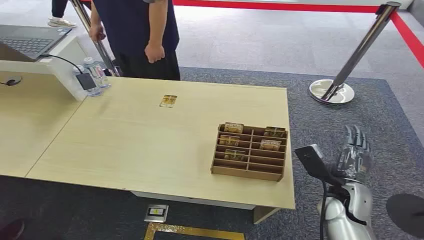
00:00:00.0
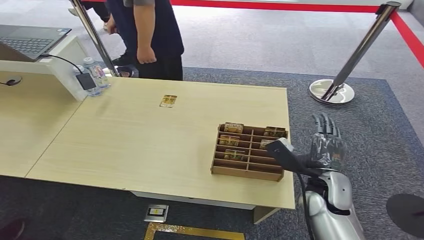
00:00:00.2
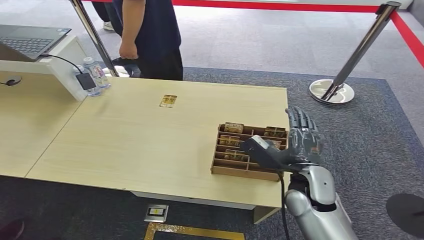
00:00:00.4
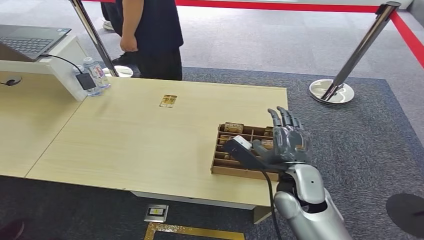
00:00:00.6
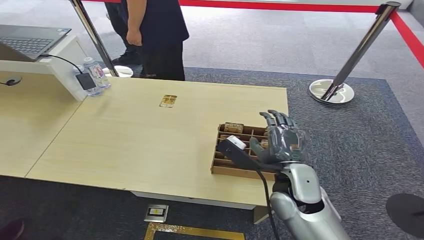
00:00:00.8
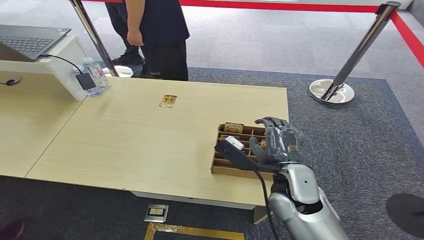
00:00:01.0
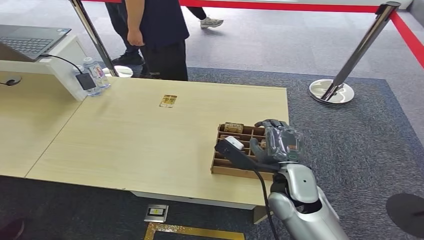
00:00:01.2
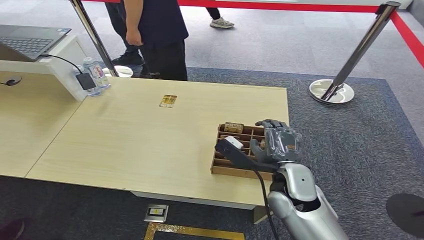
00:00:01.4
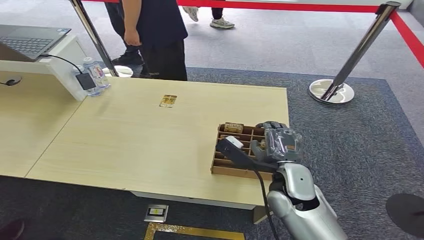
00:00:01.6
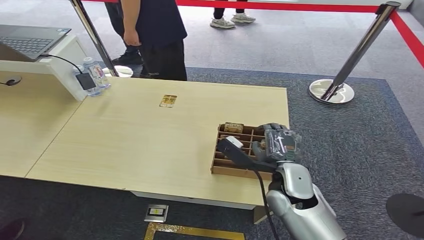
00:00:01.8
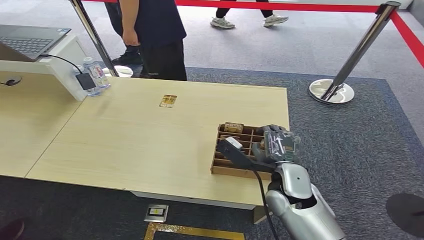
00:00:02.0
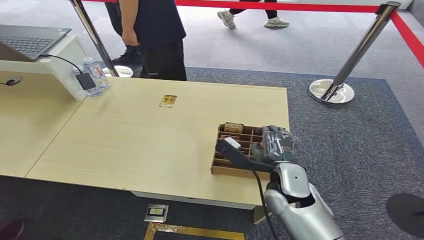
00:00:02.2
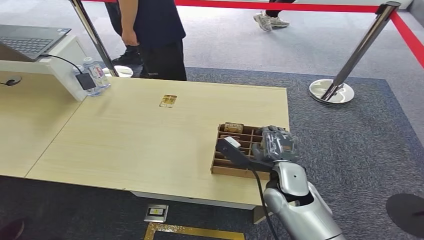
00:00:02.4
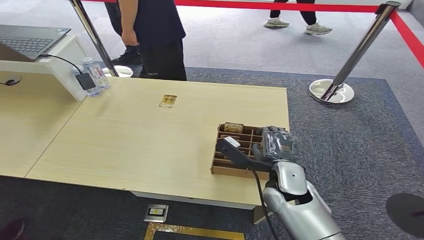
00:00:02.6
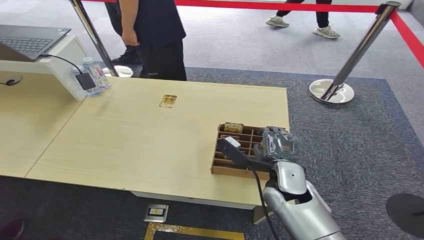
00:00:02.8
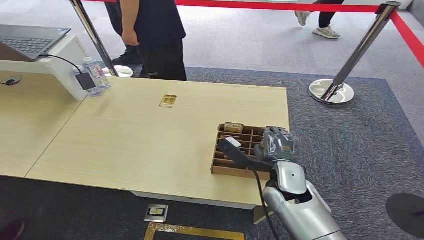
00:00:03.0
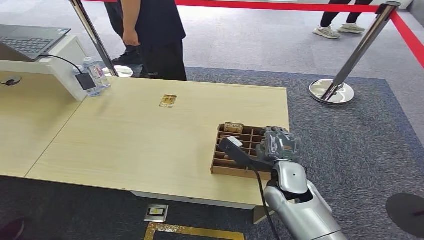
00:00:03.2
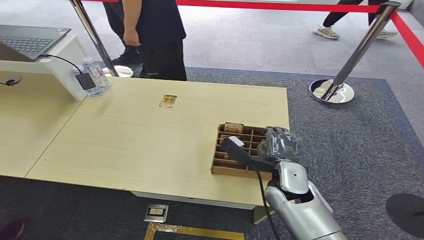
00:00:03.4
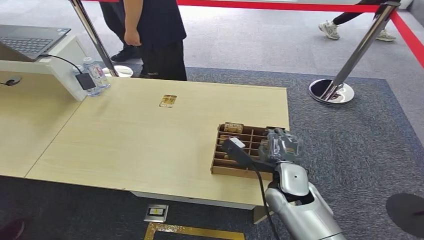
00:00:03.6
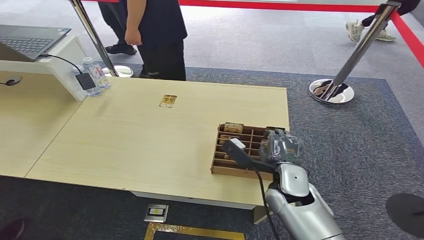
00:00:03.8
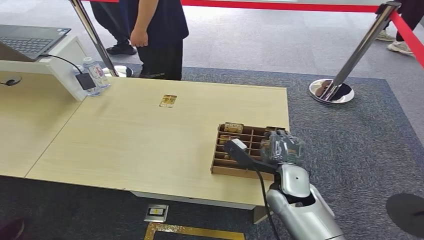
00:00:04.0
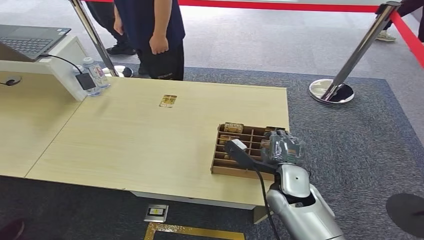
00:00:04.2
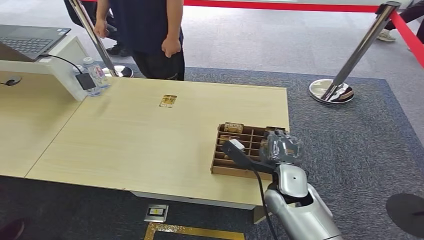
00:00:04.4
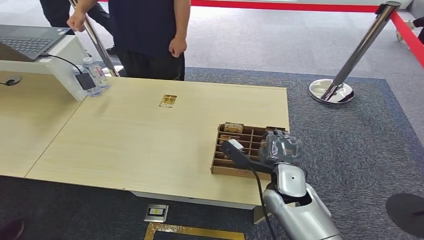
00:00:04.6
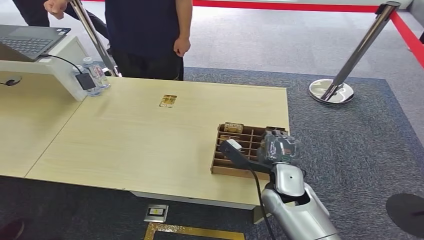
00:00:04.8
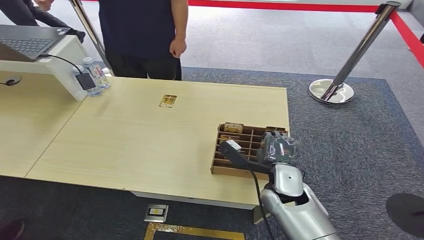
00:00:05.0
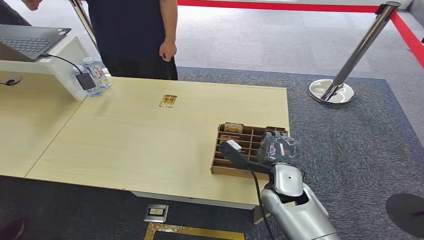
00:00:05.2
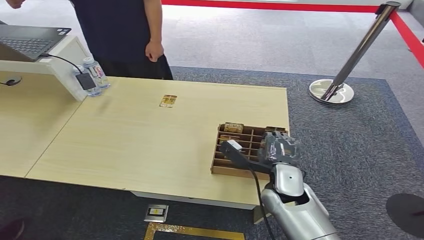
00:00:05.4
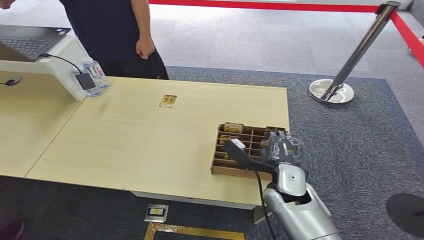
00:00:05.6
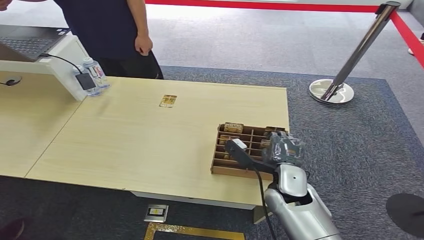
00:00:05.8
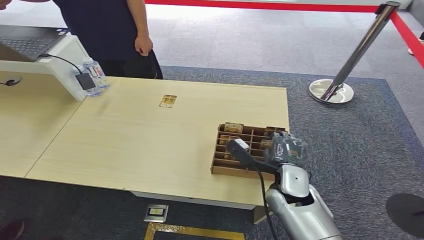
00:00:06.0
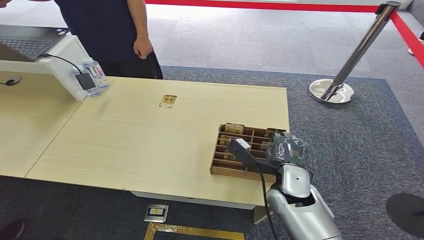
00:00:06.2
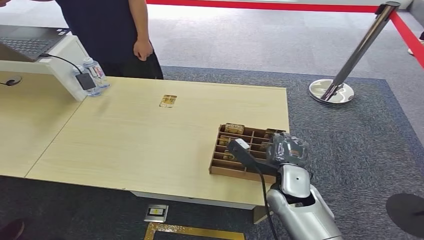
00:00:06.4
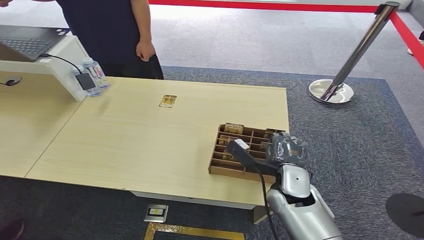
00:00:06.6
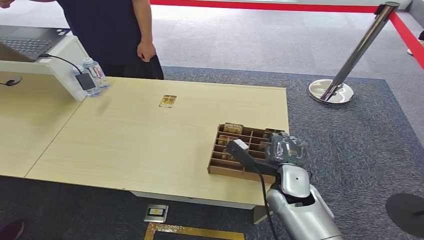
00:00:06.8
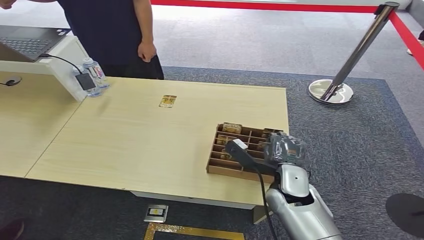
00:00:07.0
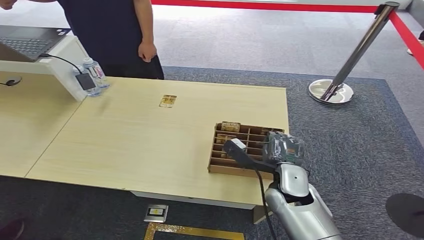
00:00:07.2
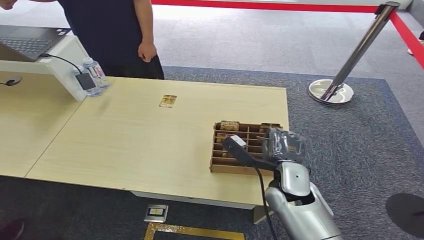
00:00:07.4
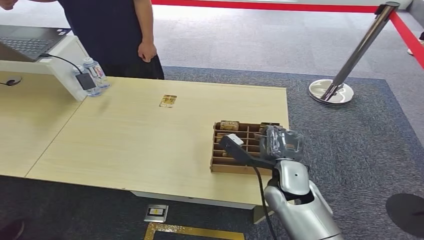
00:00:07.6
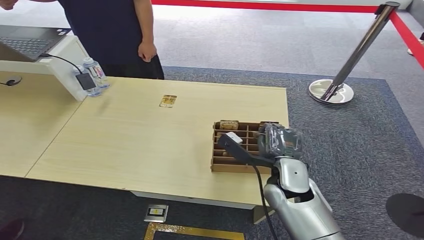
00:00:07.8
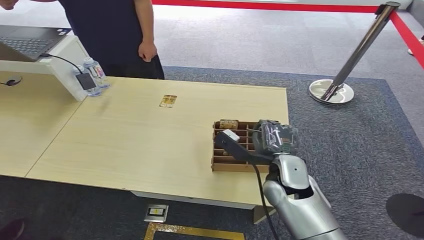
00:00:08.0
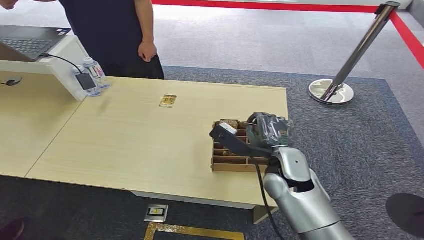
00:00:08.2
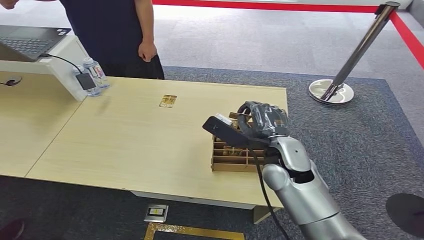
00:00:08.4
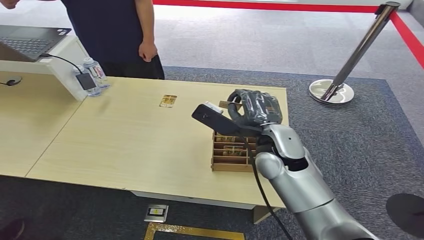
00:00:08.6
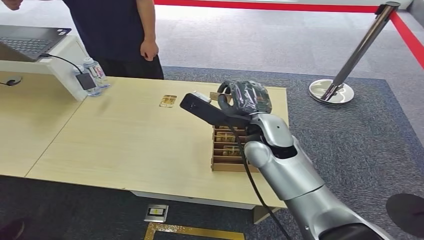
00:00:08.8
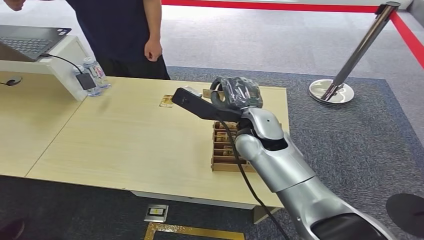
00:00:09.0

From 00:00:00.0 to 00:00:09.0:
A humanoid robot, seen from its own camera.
Task of the whole recording: Pick up the card and hand it over to the target person.
Step, from 00:00:00.0 to 00:00:08.0: Pick up the key card from the card box.
Step, from 00:00:08.2 to 00:00:09.0: Hand the key card to the target.
From 00:00:01.6 to 00:00:03.0: The hands make only small movements.
From 00:00:03.0 to 00:00:04.4: The two hands keep their place.
From 00:00:04.4 to 00:00:07.6: The hands stay close to where they were, moving slightly.
From 00:00:07.6 to 00:00:09.0: The right hand moves upward, forward and to the left, roughly 15 cm.

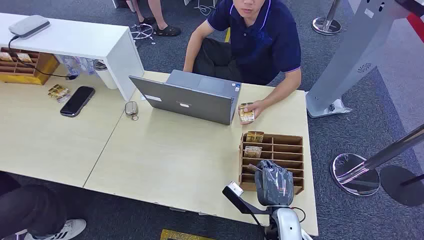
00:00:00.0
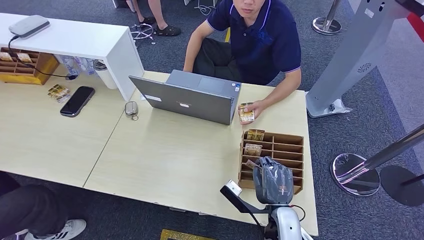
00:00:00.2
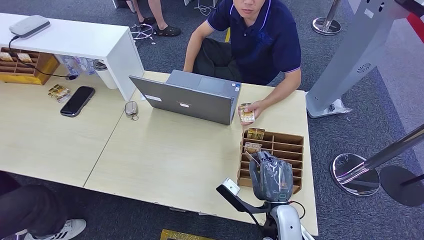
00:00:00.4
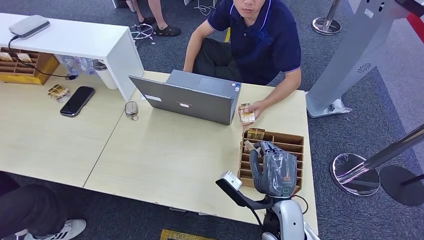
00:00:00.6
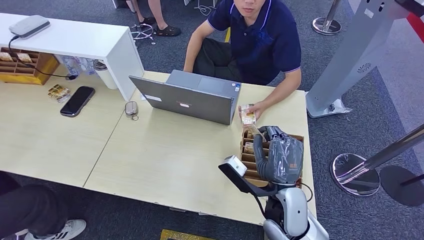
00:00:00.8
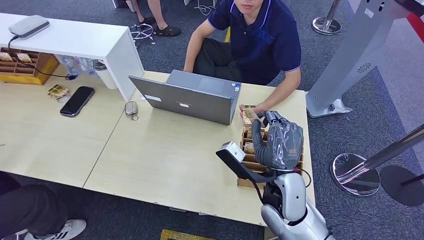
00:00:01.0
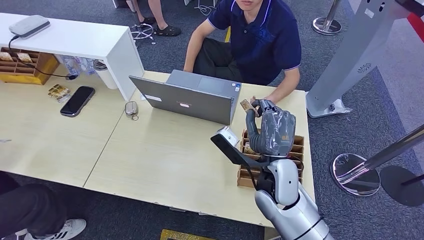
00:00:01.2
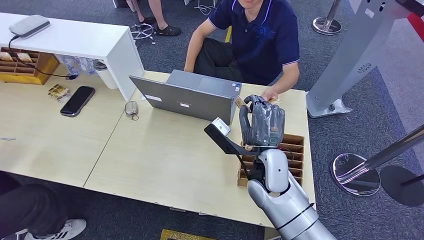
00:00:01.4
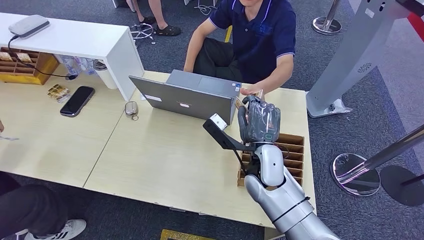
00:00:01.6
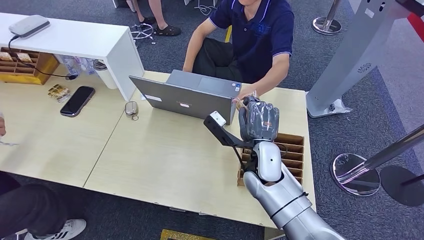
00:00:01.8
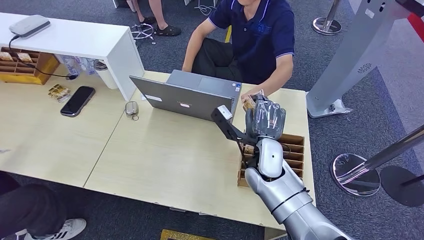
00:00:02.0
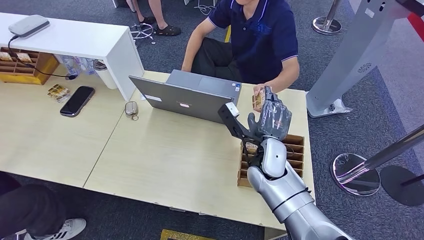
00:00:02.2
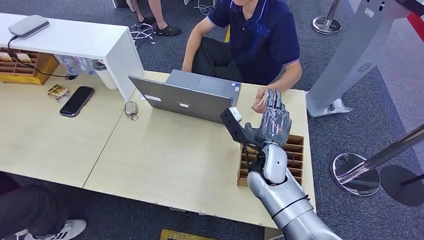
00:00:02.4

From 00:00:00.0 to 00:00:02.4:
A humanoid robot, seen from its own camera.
Task of the whole recording: Pick up the card and hand it over to the target person.
Step, from 00:00:00.0 to 00:00:00.6: Pick up the key card from the card box.
Step, from 00:00:02.0 to 00:00:02.4: Hand the key card to the target.
